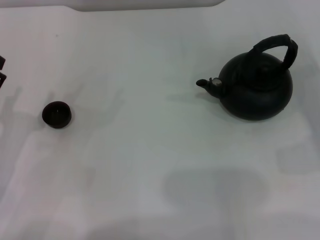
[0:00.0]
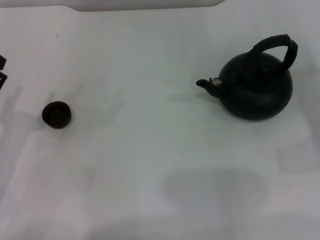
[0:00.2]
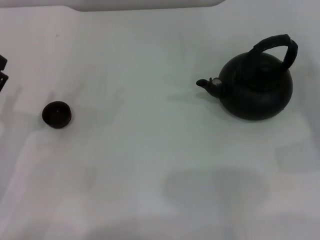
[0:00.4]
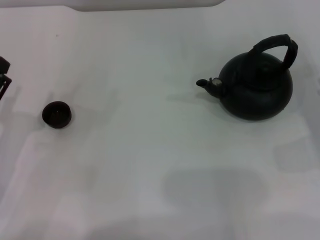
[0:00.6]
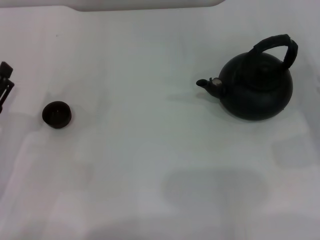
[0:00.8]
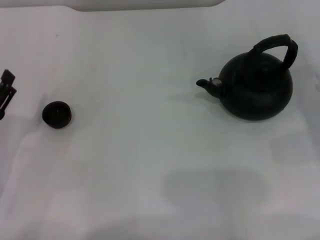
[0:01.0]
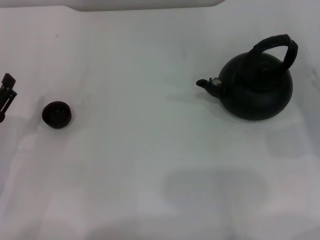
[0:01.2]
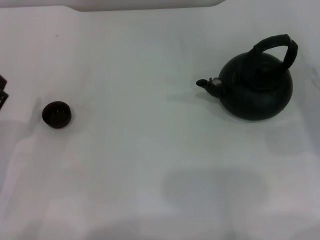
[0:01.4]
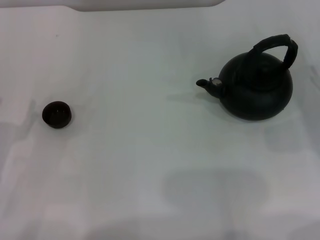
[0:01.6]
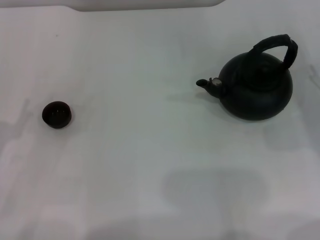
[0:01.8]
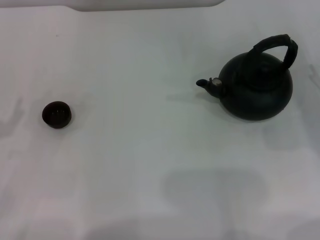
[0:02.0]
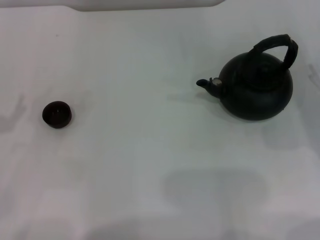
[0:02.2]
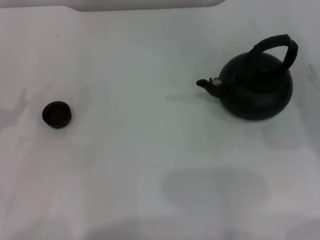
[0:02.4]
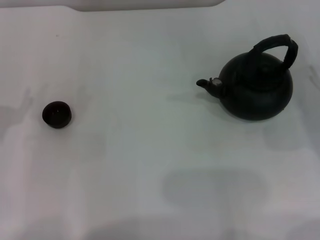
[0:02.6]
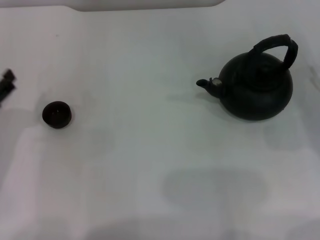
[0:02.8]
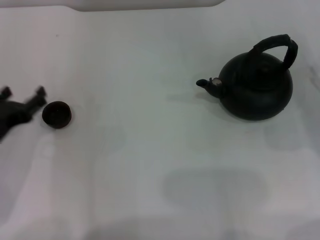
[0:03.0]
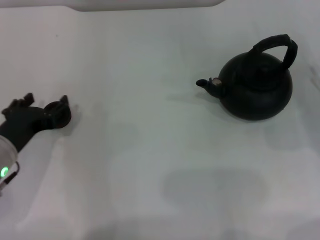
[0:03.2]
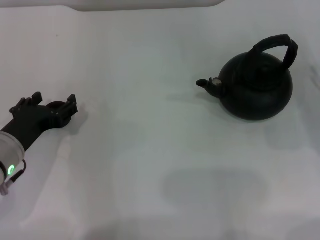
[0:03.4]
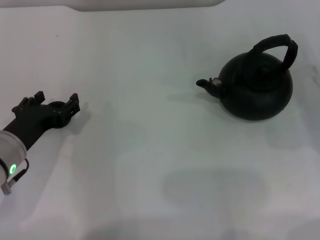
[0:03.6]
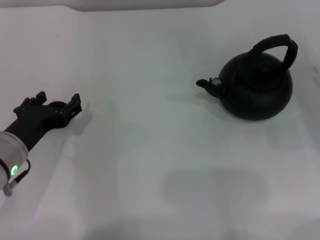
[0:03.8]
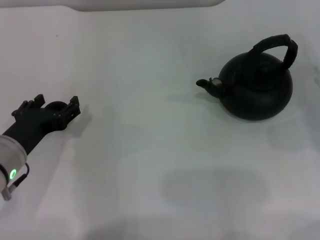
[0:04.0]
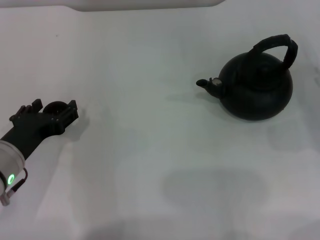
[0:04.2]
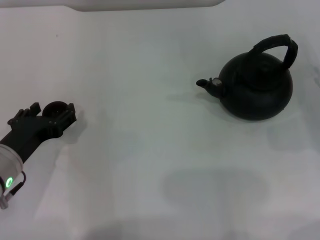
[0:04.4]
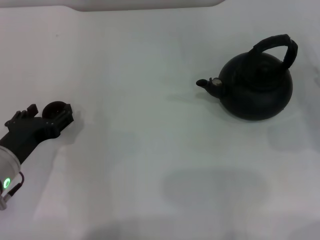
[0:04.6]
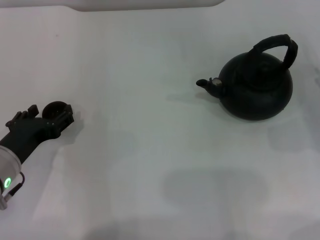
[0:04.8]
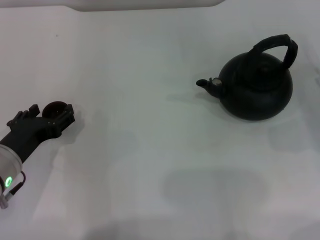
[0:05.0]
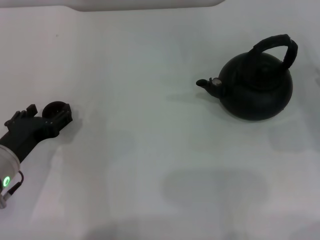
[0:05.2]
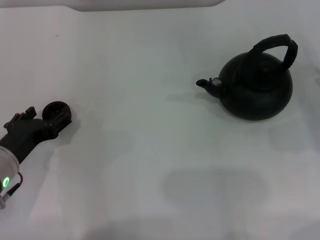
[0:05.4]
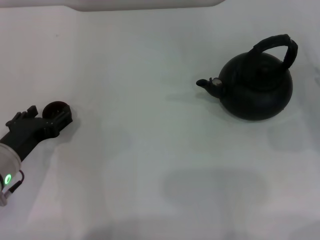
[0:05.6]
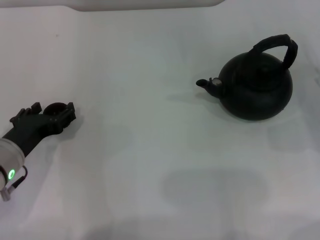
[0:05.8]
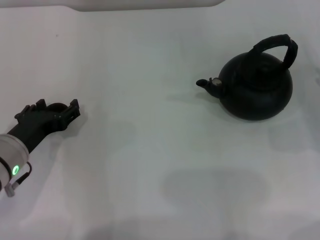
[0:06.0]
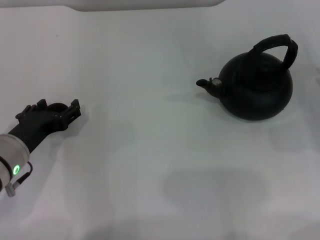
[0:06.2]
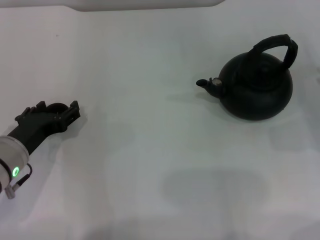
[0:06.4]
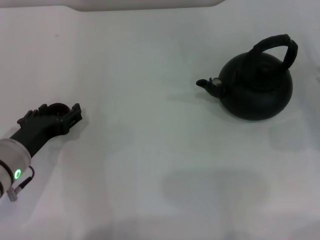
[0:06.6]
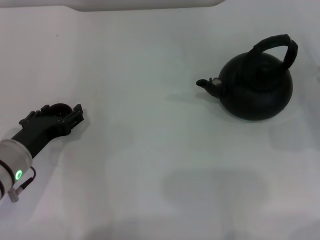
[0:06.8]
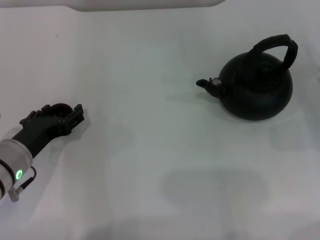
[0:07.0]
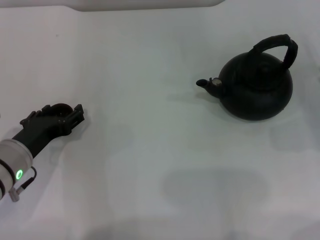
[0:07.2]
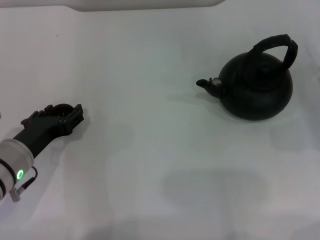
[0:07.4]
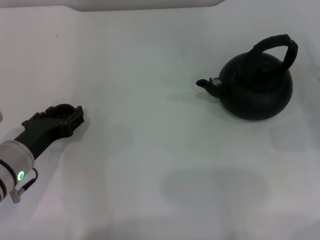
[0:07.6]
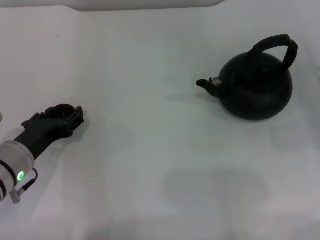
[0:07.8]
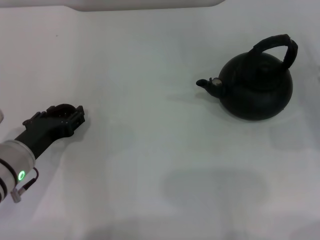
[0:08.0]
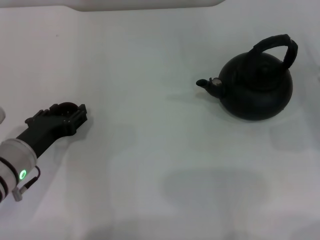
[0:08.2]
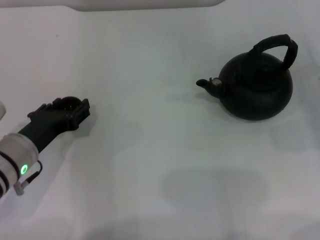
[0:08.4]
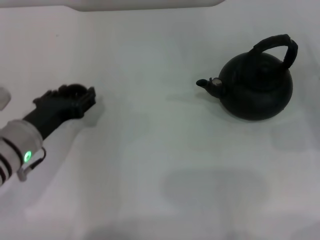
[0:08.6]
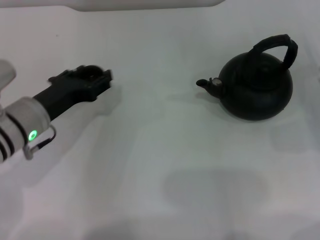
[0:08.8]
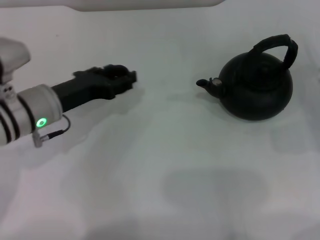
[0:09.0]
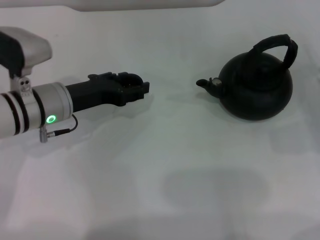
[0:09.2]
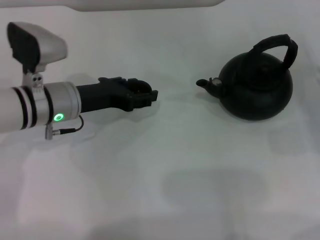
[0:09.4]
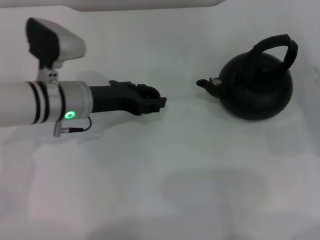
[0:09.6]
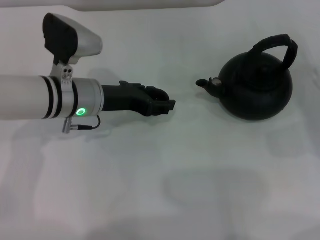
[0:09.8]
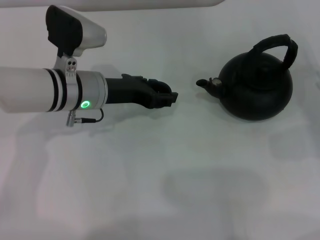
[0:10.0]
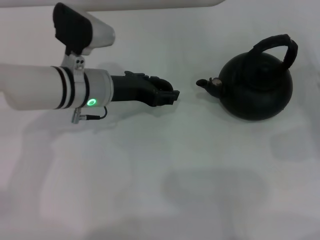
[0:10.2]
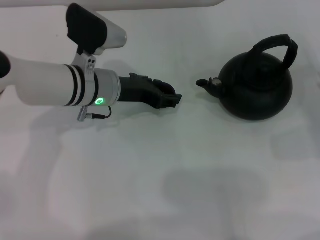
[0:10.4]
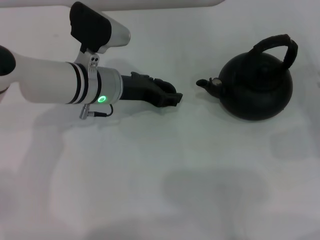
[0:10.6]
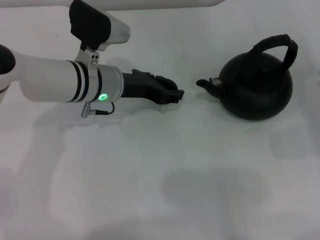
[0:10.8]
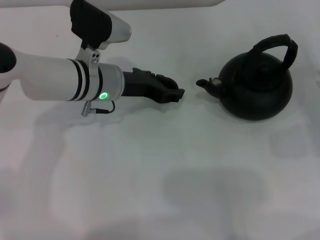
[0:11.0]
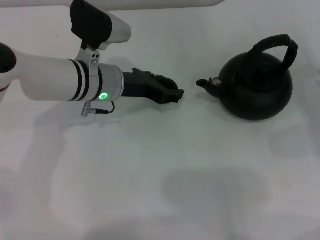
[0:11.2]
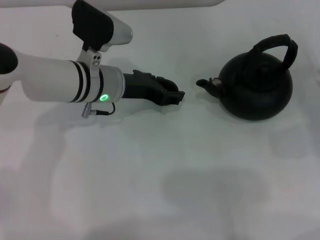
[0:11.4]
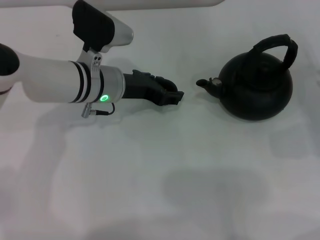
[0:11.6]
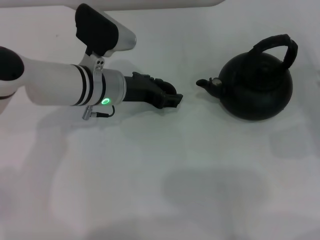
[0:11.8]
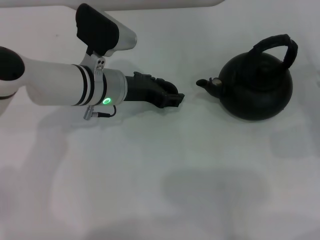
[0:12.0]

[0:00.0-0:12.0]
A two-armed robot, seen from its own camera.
Task of the whole recording: Grasp the handle of the teapot with one hand and pour tea into the teacup.
Step, 0:00.0 to 0:08.8: Pick up the teacup with the left gripper.
0:01.6 to 0:03.0: The left gripper changes place by approximately 5 cm.
0:03.0 to 0:06.0: The grippers move only a little.
0:06.0 to 0:07.6: The left gripper closes.
0:07.6 to 0:09.0: The left gripper is displaced forward by about 5 cm, and closes up.
0:09.0 to 0:10.4: The left gripper travels to the right and forward by roughly 10 cm.
0:10.4 to 0:12.0: Both grippers stay about where they are.

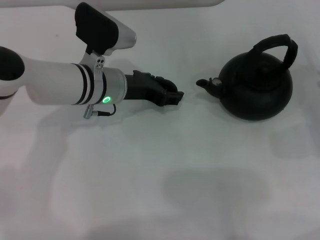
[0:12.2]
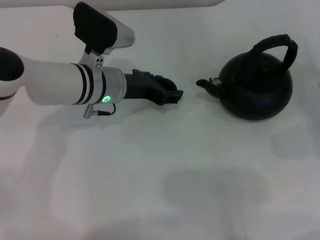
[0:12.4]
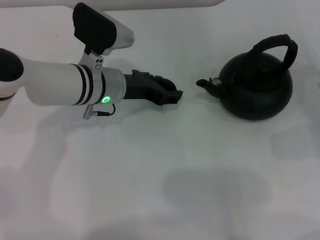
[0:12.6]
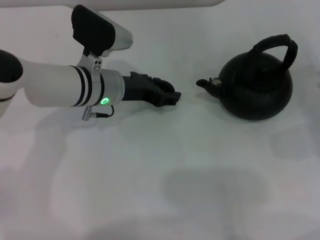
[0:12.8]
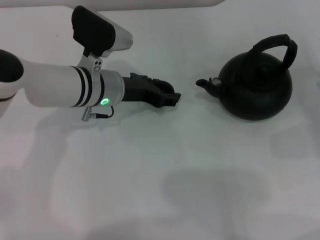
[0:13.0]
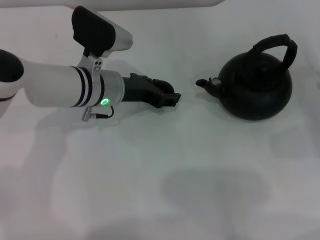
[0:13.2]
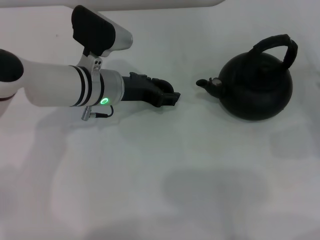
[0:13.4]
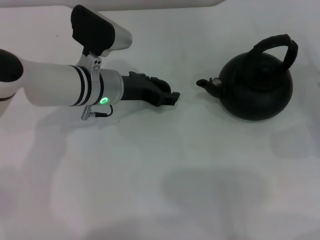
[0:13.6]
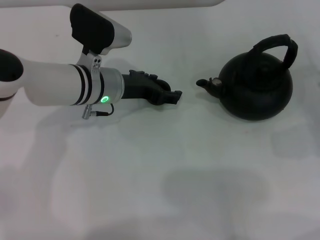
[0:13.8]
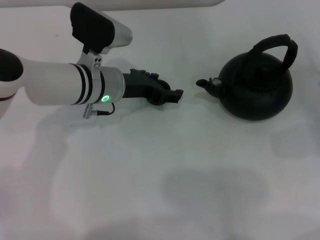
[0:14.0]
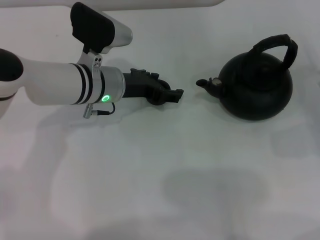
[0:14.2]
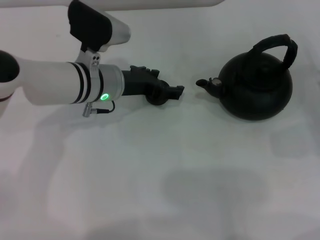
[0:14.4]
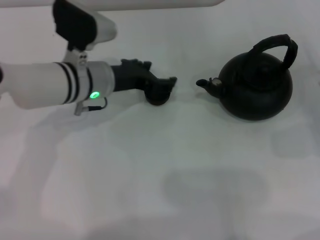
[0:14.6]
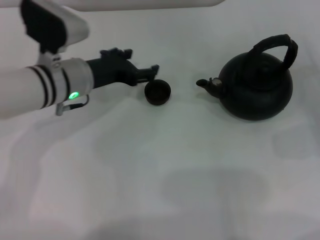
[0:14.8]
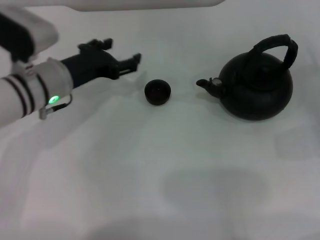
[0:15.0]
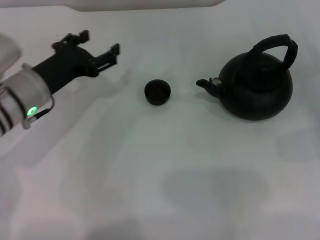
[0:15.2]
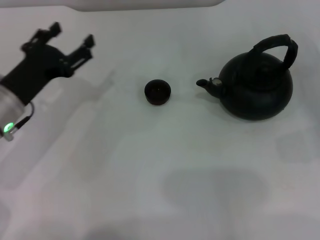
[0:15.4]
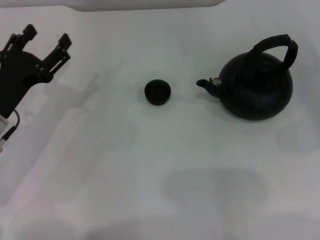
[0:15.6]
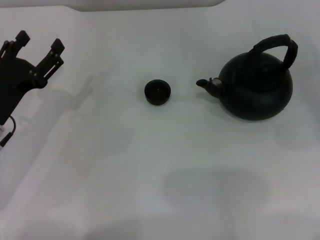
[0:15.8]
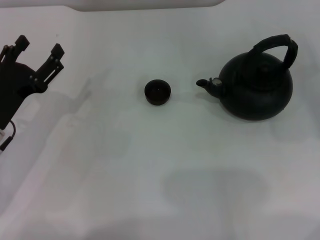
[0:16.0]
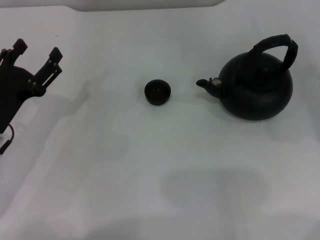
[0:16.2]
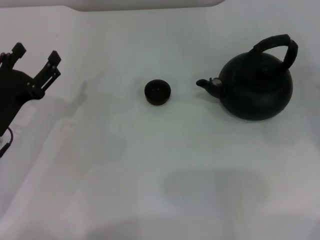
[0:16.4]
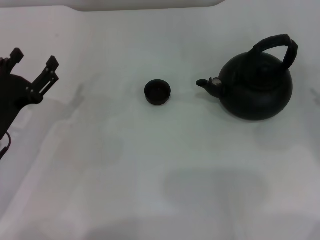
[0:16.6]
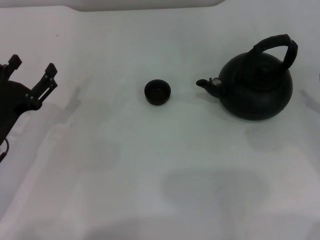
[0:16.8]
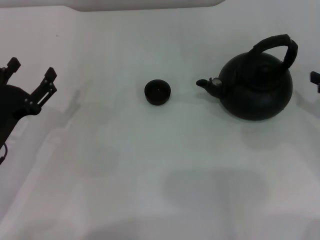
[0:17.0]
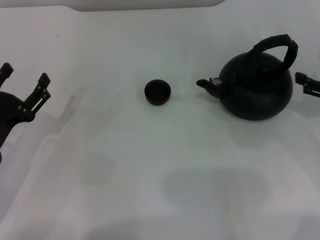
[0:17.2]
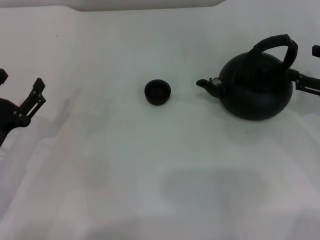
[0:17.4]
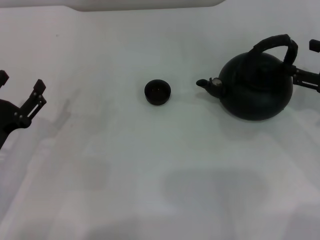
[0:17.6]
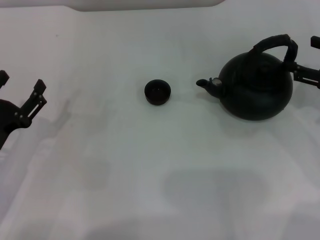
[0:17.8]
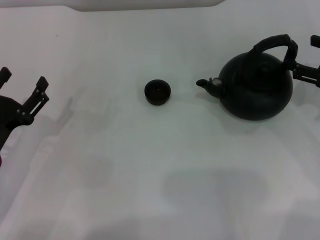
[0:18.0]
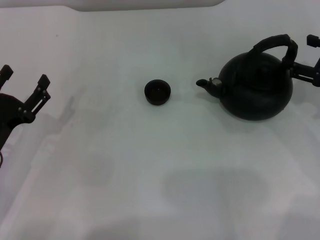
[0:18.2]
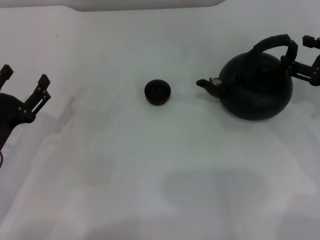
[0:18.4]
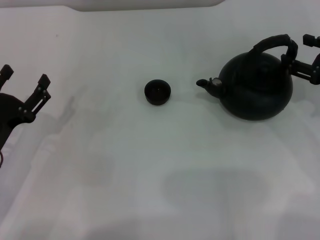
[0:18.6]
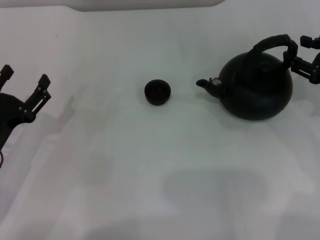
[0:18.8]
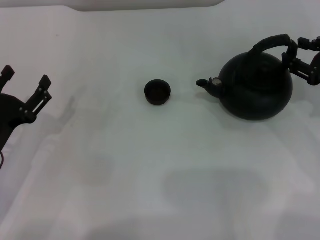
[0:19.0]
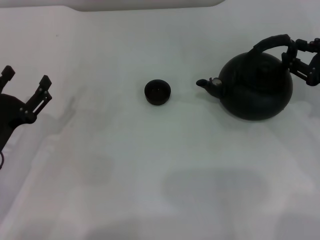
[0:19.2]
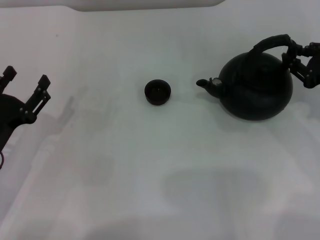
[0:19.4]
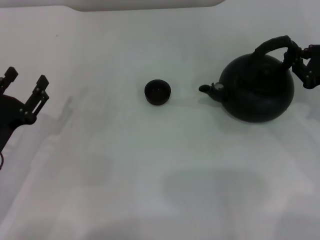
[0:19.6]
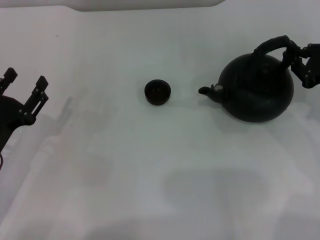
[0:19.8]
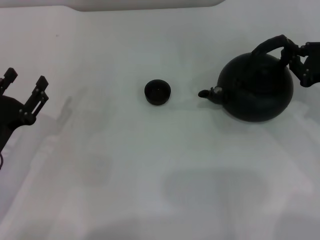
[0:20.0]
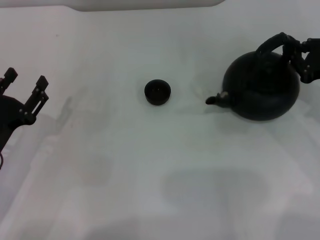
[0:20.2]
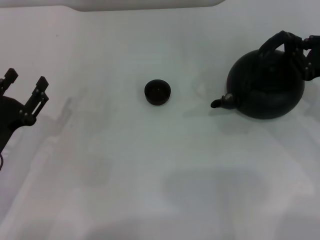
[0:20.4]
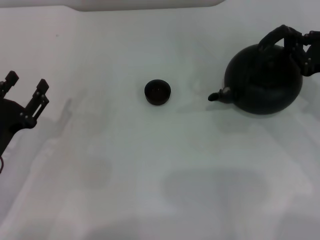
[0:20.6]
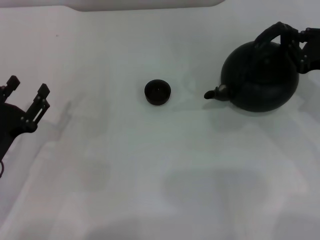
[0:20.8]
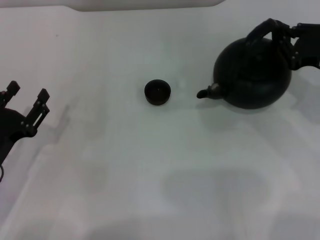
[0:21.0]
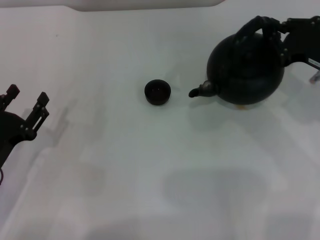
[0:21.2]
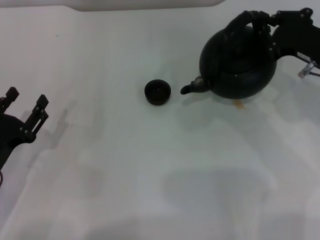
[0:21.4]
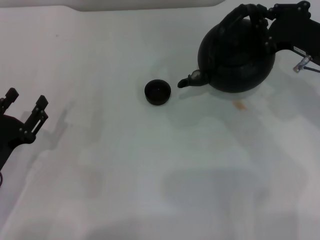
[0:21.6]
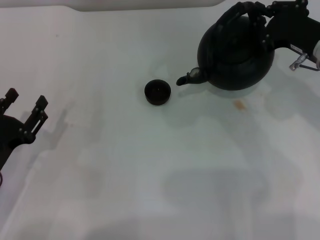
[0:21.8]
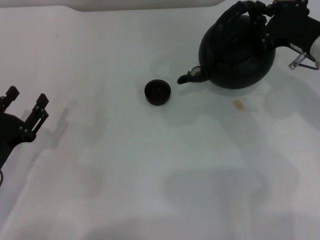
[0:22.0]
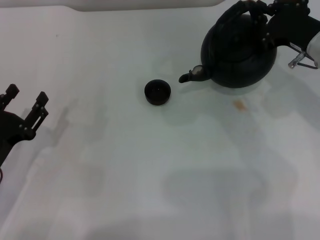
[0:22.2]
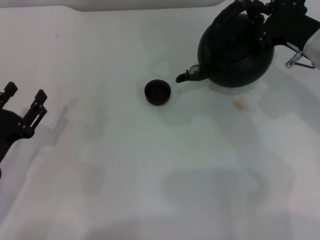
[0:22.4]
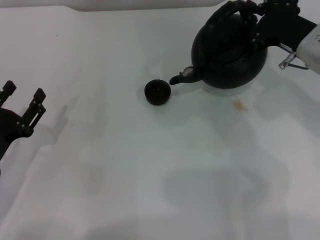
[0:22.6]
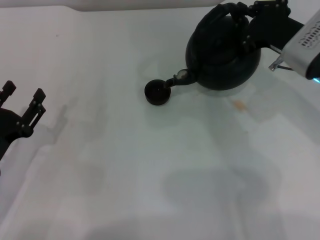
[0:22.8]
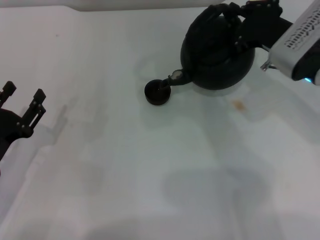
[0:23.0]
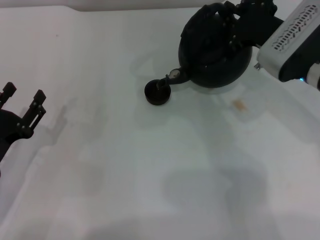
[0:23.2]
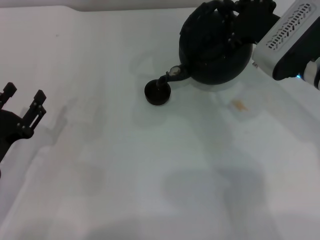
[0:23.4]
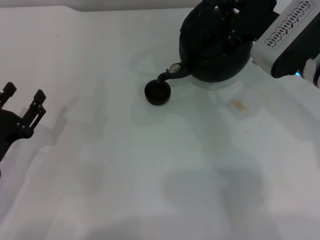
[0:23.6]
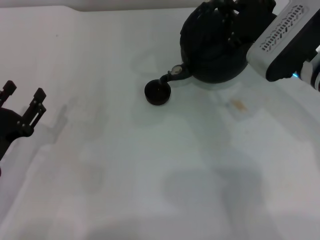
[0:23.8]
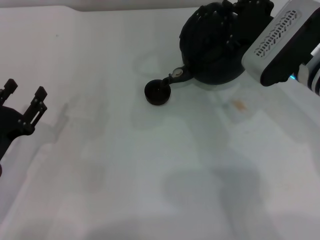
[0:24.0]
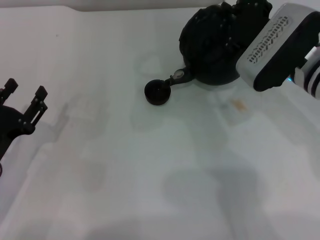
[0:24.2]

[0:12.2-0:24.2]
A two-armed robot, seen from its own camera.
Task of the whole recording: Grasp the handle of the teapot with one hand and pour tea into the teacup.
Step, 0:12.2 to 0:14.6: Place the teacup in the center of view with the left gripper.
Step, 0:14.8 to 0:21.8: Pick up the teapot with the right gripper.
0:12.2 to 0:13.8: The left gripper opens up.
0:13.8 to 0:15.2: The left gripper is displaced to the left and backward by roughly 10 cm, and opens up.
0:15.2 to 0:16.6: The left gripper shifts roughly 10 cm backward and to the left.
0:16.6 to 0:18.2: The right gripper moves to the left, approximately 5 cm.
0:18.2 to 0:19.8: The left gripper closes up, while the right gripper closes.
0:19.8 to 0:21.2: The grippers move only a little.
0:21.2 to 0:22.6: The right gripper is displaced to the left by roughly 5 cm.
0:22.6 to 0:24.2: The right gripper changes place by some 5 cm.
